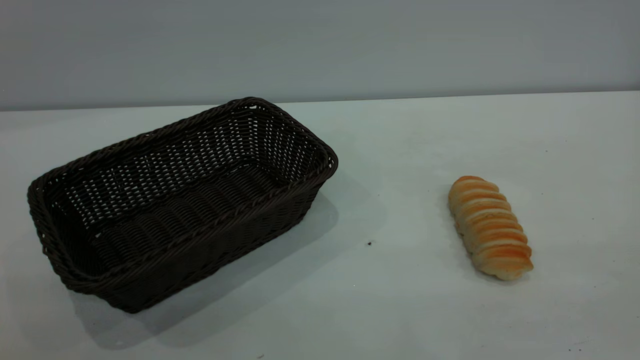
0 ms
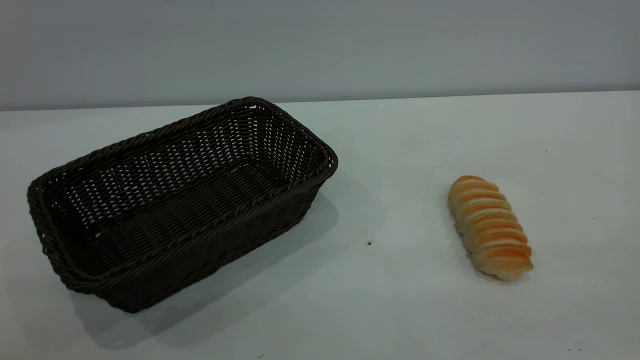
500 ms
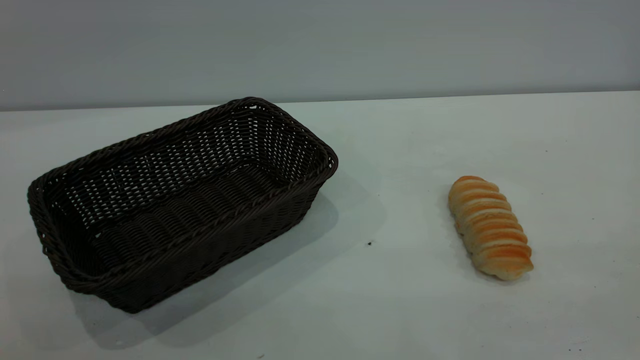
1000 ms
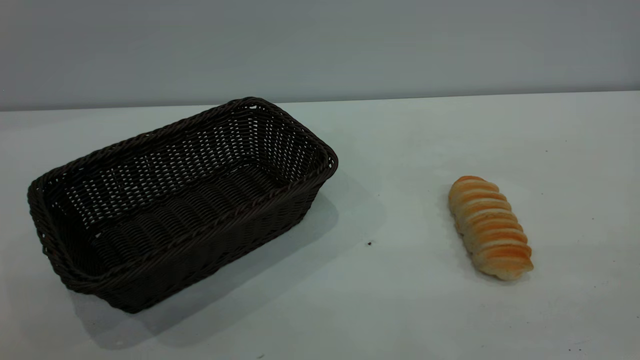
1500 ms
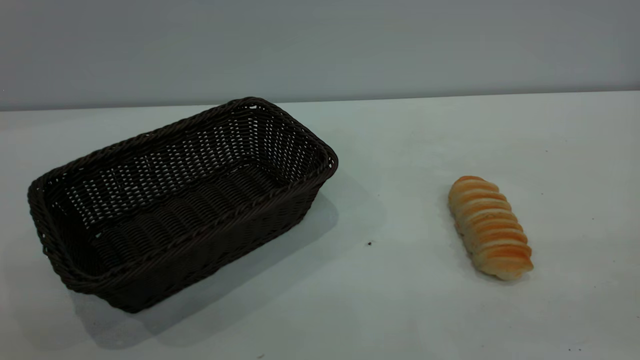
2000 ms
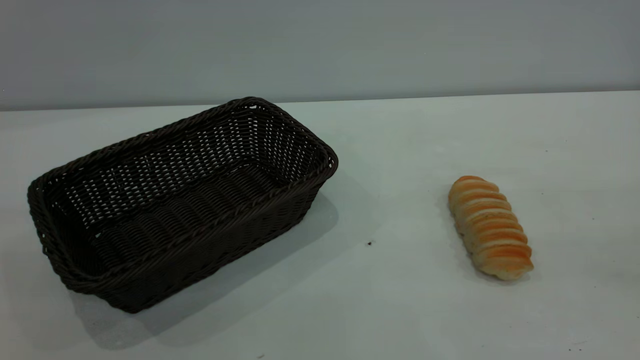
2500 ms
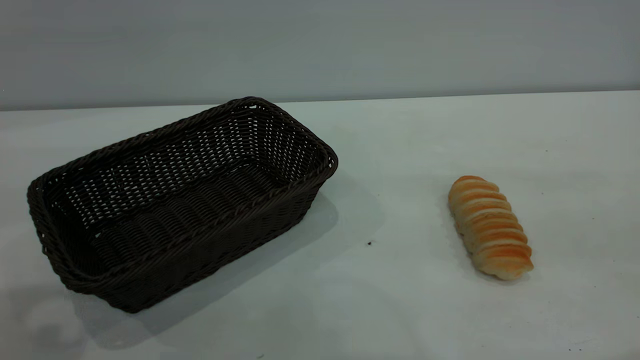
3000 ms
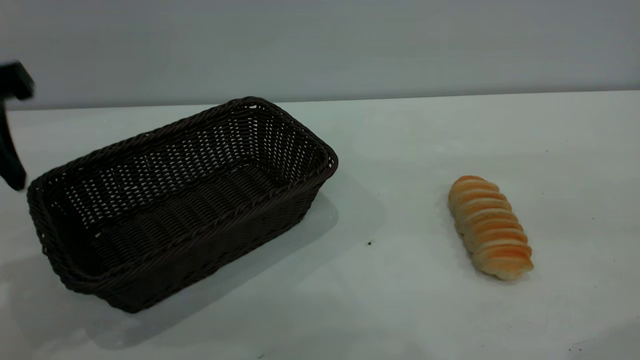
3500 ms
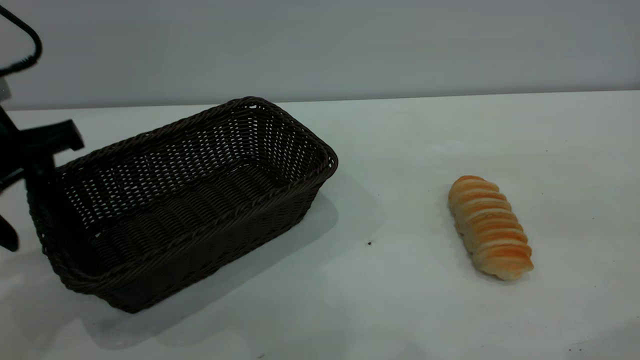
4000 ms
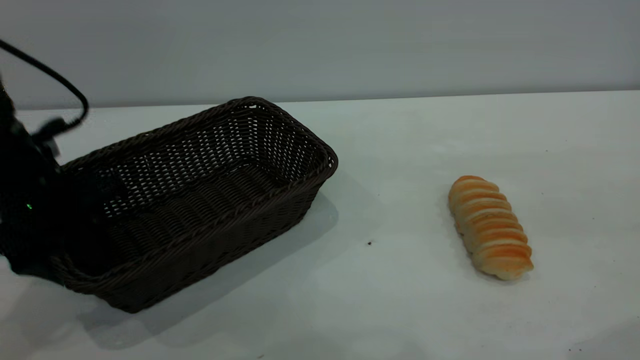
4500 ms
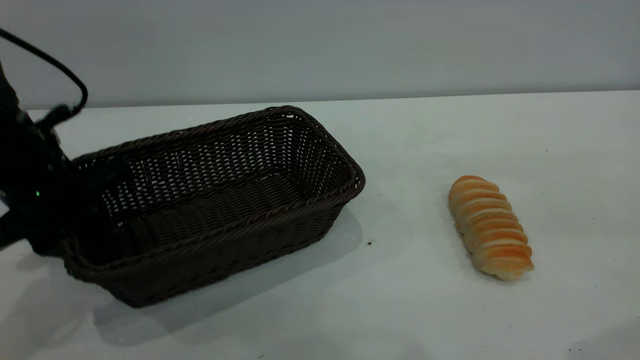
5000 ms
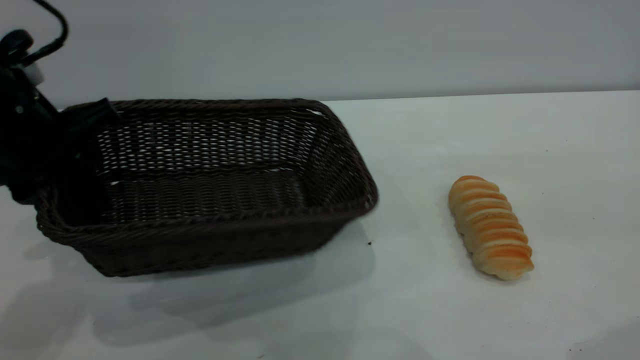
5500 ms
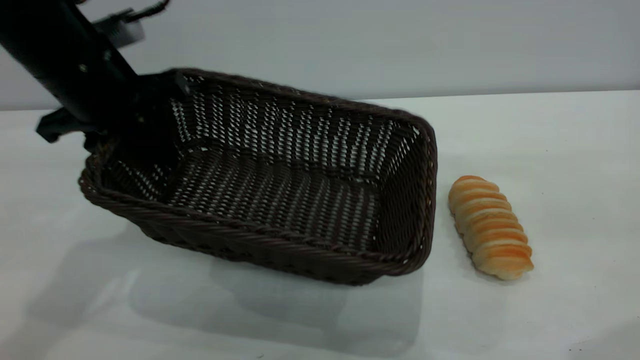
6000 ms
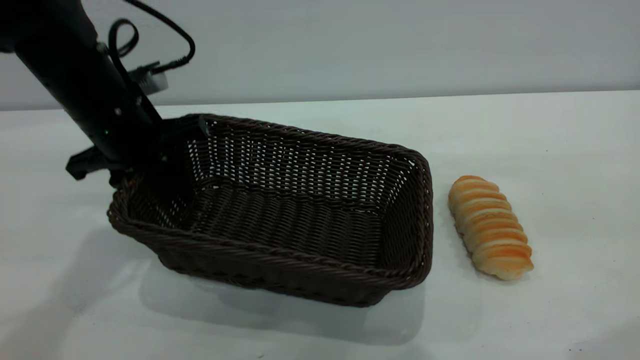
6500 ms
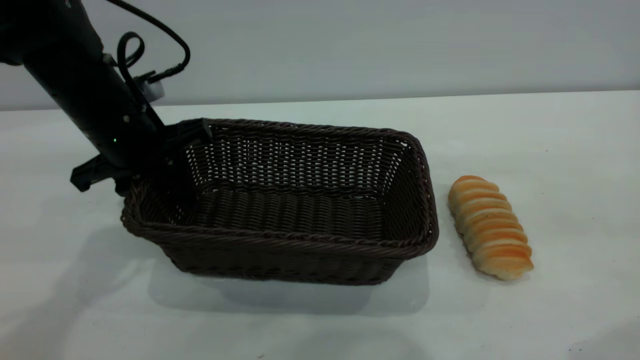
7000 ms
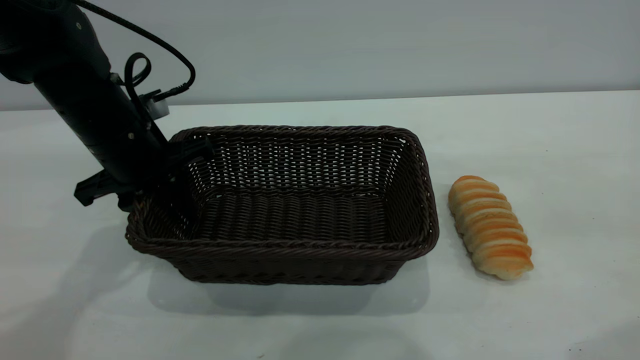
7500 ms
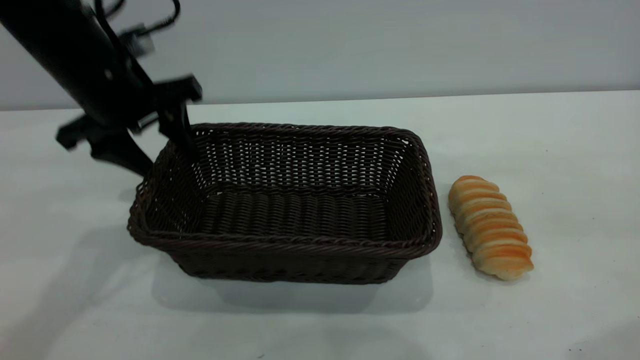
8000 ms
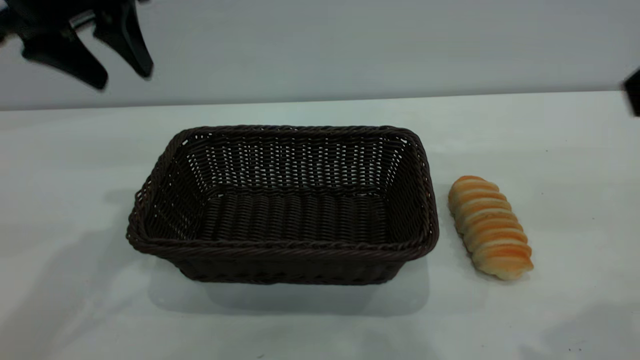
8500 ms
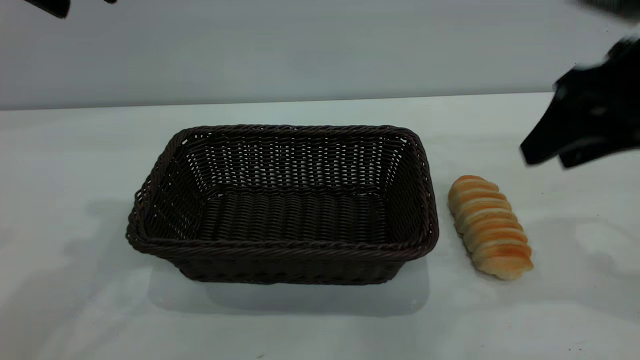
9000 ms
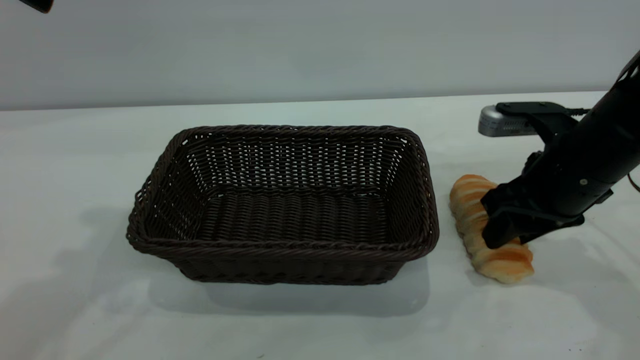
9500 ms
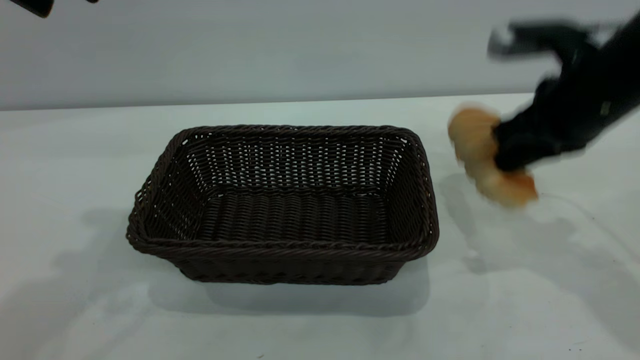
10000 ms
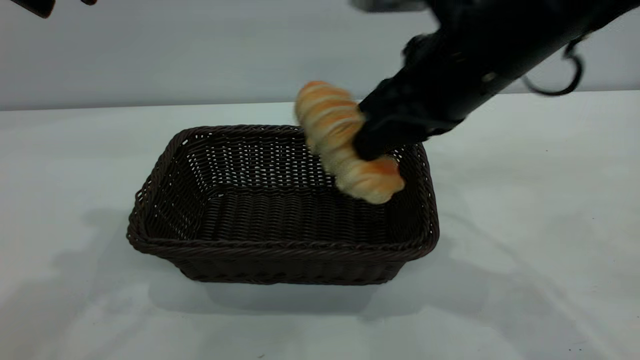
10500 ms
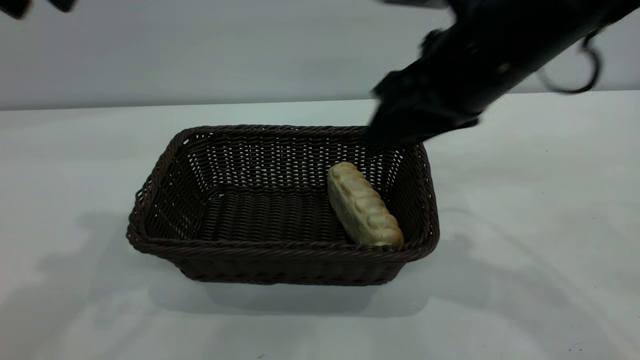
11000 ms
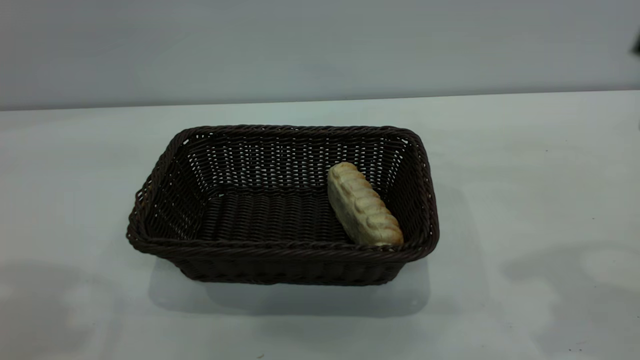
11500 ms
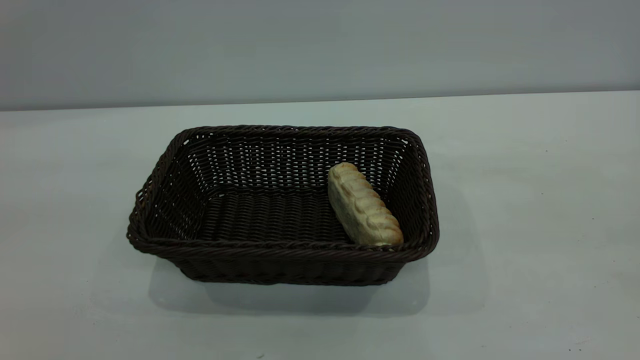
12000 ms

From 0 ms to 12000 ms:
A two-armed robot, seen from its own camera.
Task of the whole recording: One hand grasps the black basket and places it in the middle of the table, while the other hand picks up the long bread and puts it into the black basket.
Step, from 0 ms to 8000 ms: Move the basket to the center of view.
Step, from 10500 ms to 11000 ms: place the bread into the basket.
From 2000 ms to 4000 ms: The left gripper moves forward and downward, approximately 35 cm.
From 4000 ms to 6000 ms: The left gripper shifts some 10 cm forward and to the right, travels downward and back again, about 5 cm each way, and closes its fingers.
From 6000 ms to 8000 ms: The left gripper reaches about 10 cm downward, then returns, and opens its fingers.
From 8000 ms to 10000 ms: The right gripper is displaced forward and downward by about 20 cm, and closes its fingers, while the left gripper heads upward and backward, covering about 20 cm.
From 10000 ms to 12000 ms: The left gripper shifts roughly 20 cm backward, while the right gripper goes some 30 cm backward and upward, and opens.
